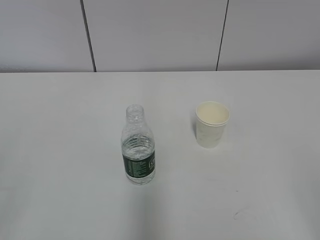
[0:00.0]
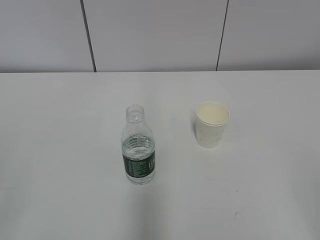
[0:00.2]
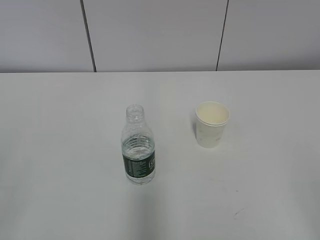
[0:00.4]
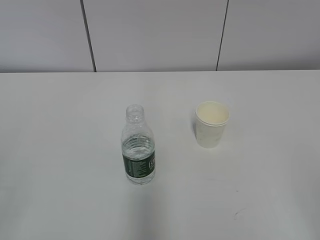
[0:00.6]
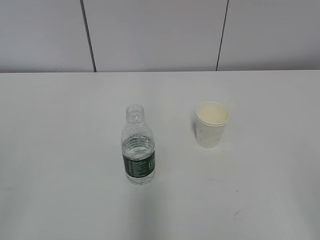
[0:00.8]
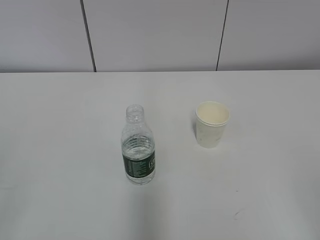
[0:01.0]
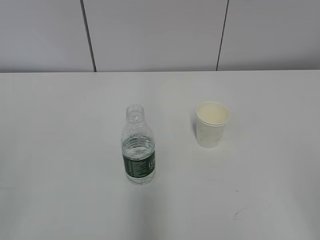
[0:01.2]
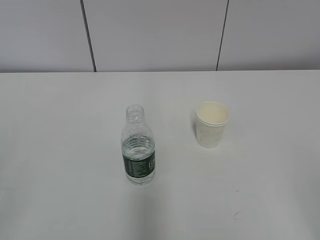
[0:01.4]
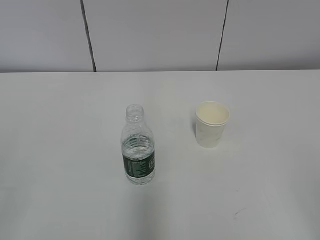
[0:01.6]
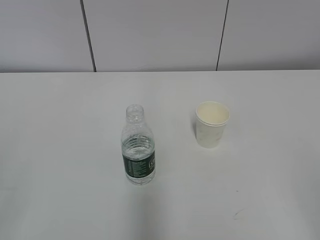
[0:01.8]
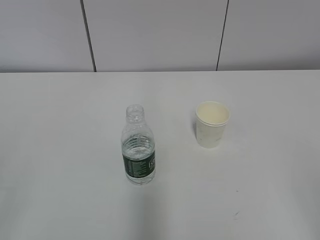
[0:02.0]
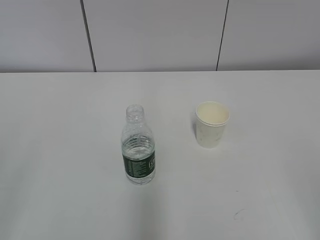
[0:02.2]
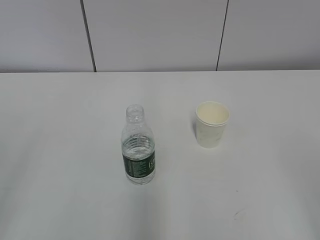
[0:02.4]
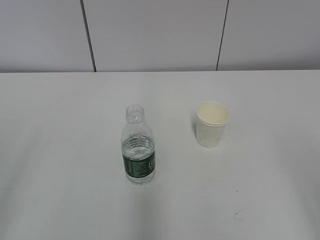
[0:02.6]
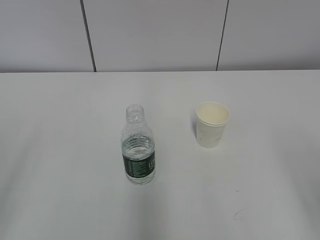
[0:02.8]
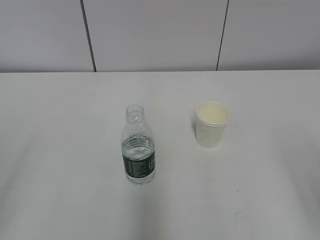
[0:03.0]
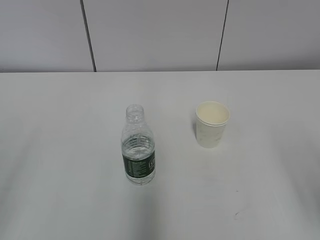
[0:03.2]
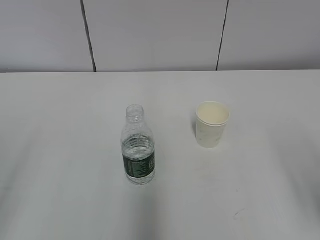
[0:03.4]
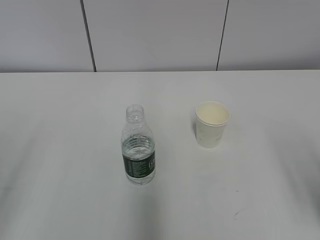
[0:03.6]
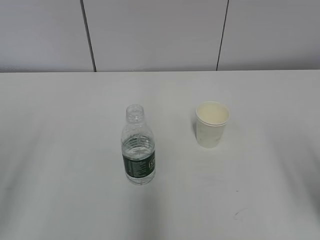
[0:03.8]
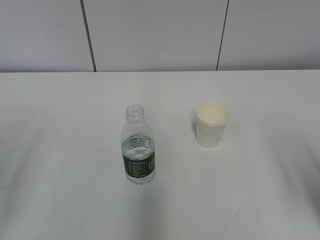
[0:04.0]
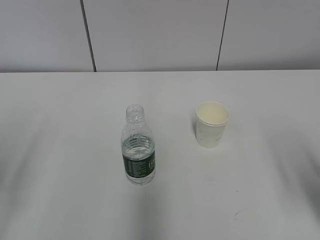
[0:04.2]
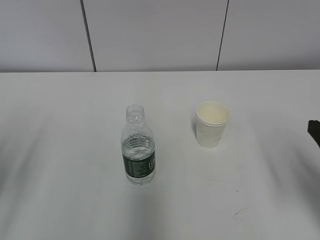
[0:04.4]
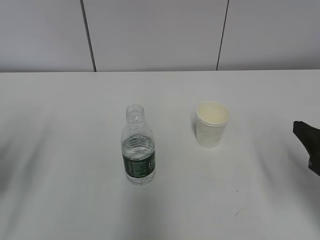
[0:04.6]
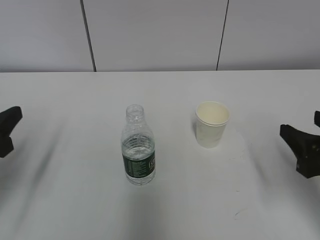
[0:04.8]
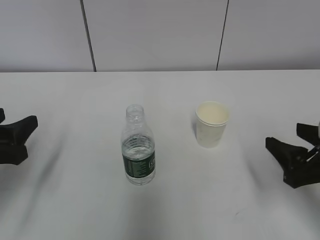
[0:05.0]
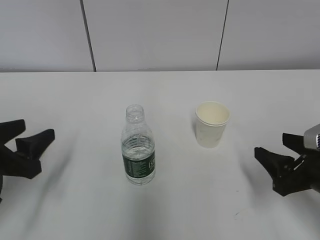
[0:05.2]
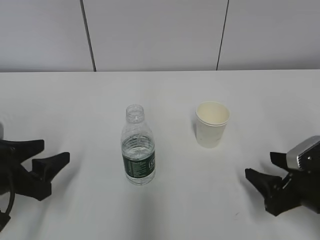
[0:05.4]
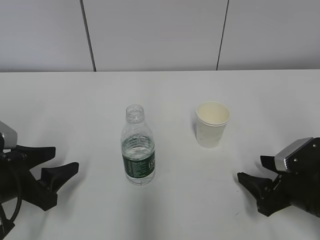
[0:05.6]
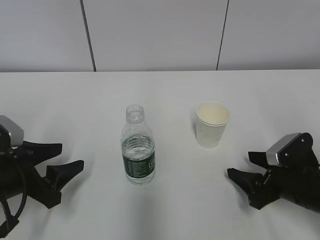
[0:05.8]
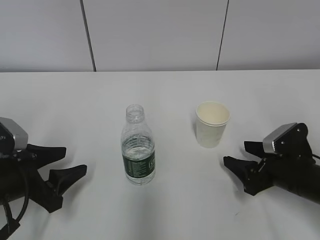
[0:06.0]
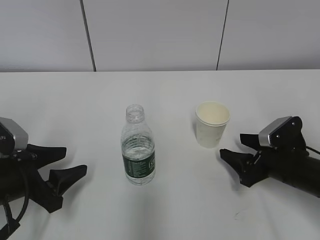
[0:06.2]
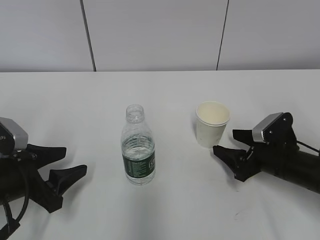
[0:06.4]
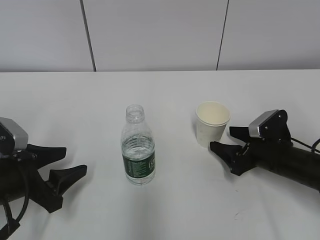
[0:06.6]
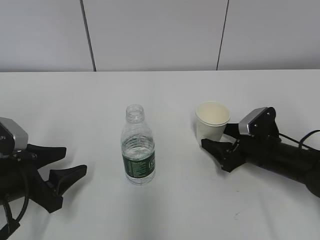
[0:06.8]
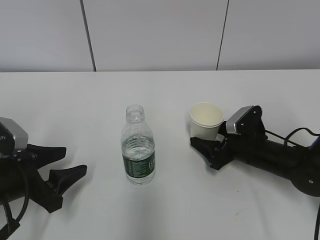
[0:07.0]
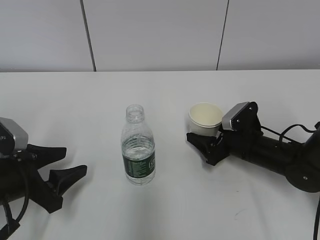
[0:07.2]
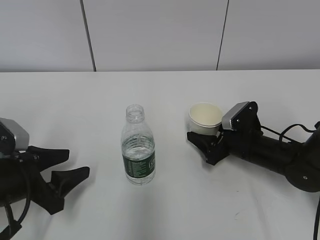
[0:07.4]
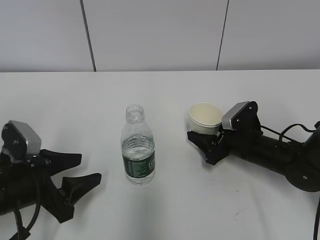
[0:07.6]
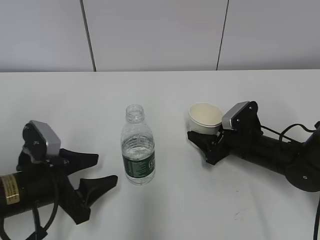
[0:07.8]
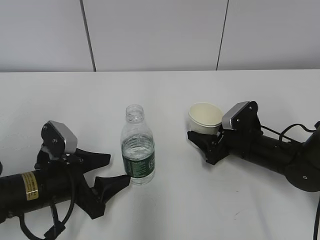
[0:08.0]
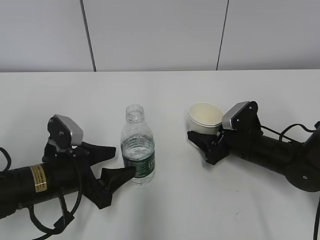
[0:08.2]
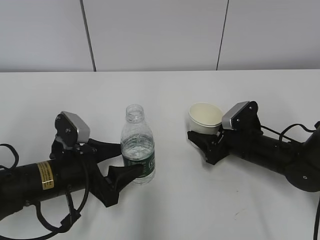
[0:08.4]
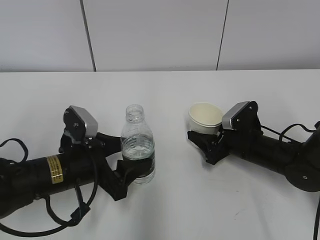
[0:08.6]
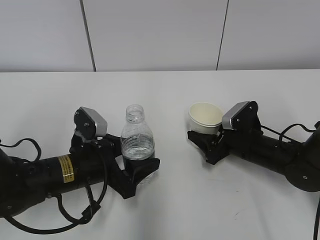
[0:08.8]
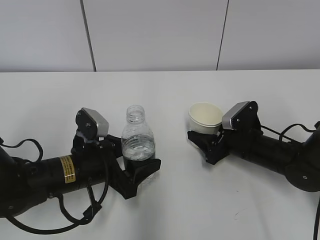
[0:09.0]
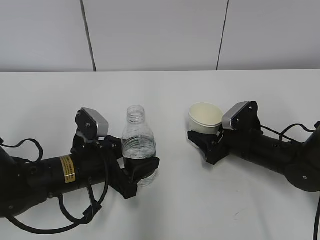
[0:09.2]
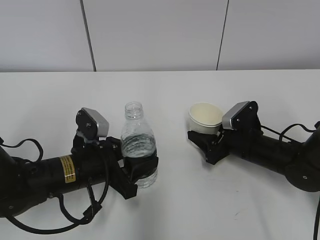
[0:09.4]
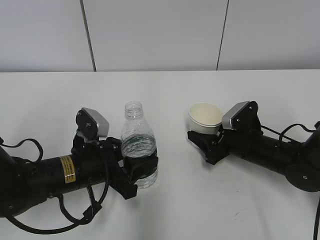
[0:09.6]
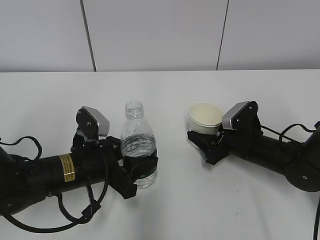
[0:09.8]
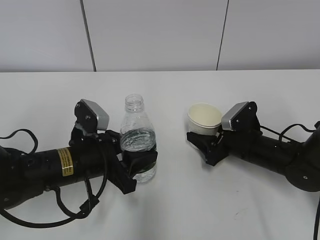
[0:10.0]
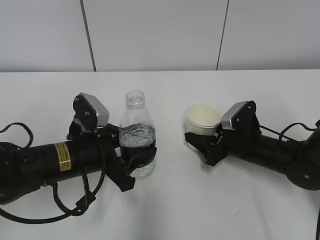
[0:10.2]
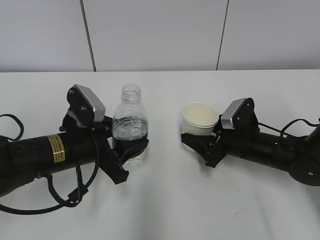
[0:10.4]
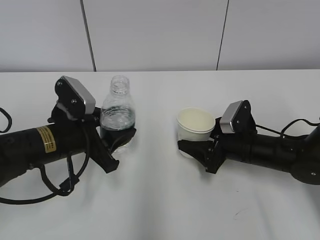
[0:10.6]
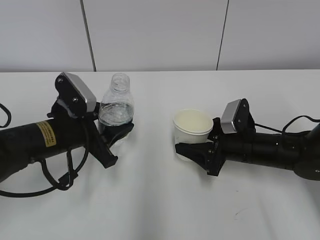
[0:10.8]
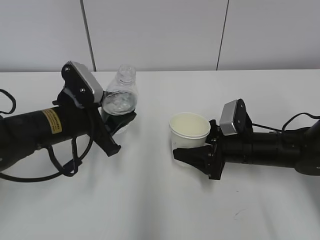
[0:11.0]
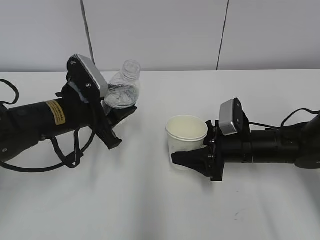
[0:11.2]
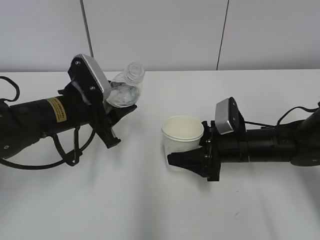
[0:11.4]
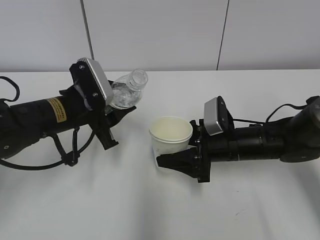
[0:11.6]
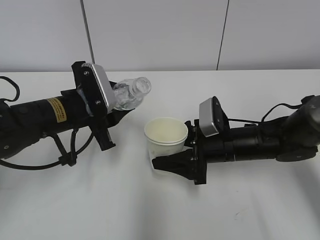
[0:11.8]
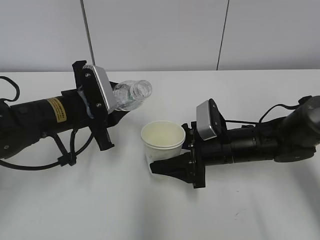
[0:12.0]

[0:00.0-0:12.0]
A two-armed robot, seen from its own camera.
Step, 0:00.0 to 0:08.2: Grab the paper cup with the right hand.
0:03.0 to 0:04.4: The right gripper travels forward by about 10 cm.
0:04.4 to 0:06.0: The left gripper moves downward, forward and to the right, some 15 cm. Meanwhile the right gripper is displaced downward and forward by some 15 cm.
0:06.0 to 0:07.6: The right gripper shifts approximately 10 cm forward.
0:07.6 to 0:09.0: The left gripper travels to the right by some 10 cm.
0:09.0 to 0:10.4: The left gripper closes.
0:10.4 to 0:12.0: The right gripper is displaced to the left by approximately 5 cm. Meanwhile the left gripper shifts some 5 cm forward.

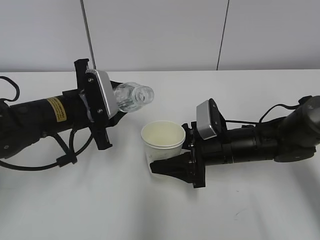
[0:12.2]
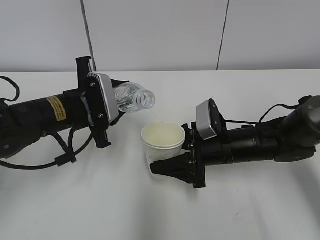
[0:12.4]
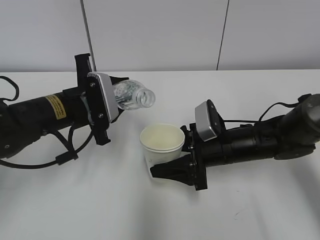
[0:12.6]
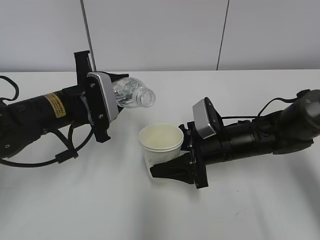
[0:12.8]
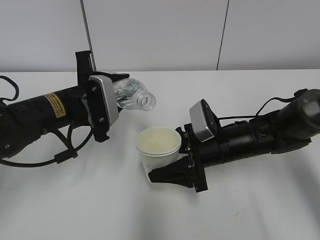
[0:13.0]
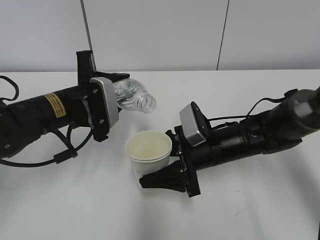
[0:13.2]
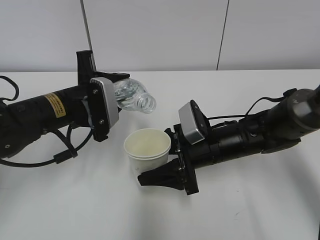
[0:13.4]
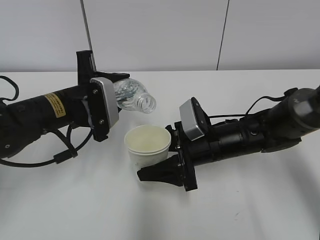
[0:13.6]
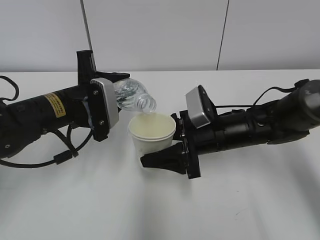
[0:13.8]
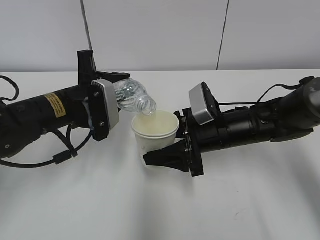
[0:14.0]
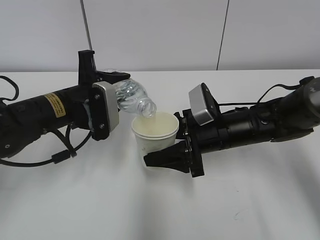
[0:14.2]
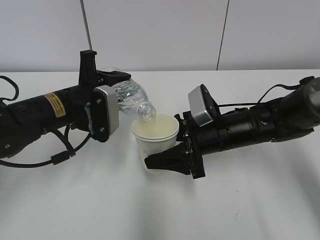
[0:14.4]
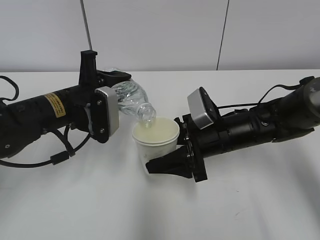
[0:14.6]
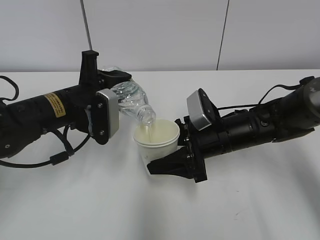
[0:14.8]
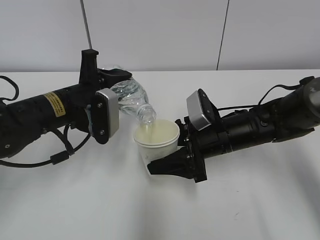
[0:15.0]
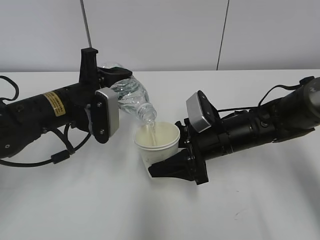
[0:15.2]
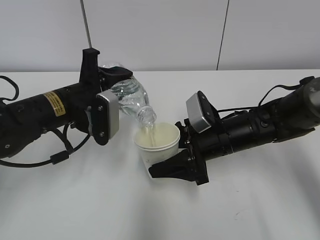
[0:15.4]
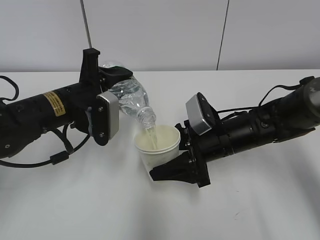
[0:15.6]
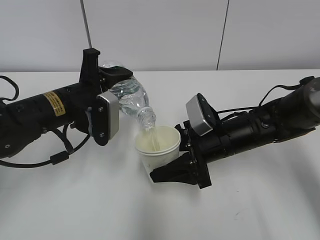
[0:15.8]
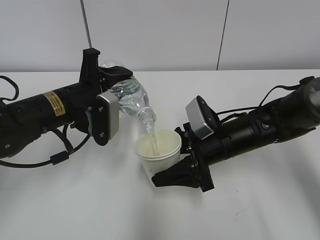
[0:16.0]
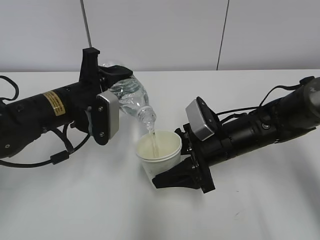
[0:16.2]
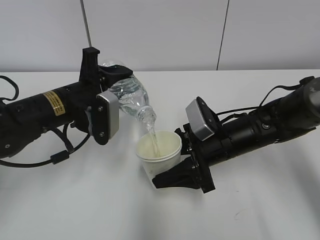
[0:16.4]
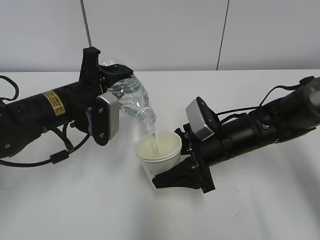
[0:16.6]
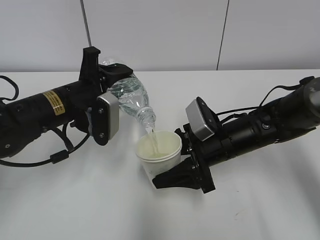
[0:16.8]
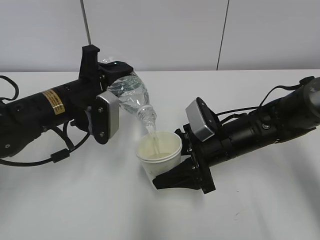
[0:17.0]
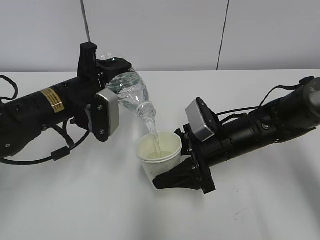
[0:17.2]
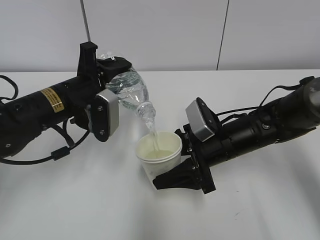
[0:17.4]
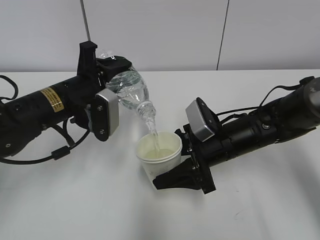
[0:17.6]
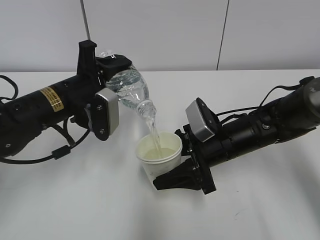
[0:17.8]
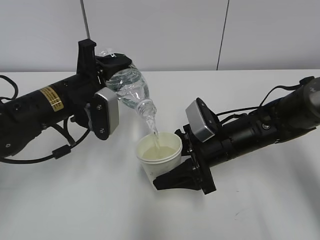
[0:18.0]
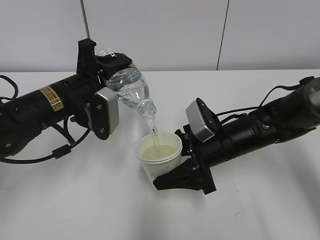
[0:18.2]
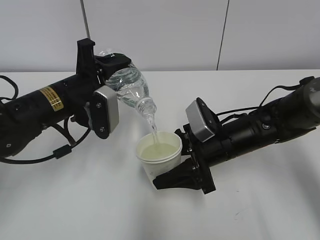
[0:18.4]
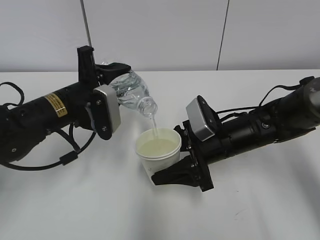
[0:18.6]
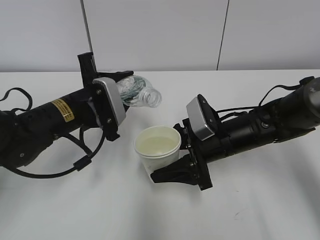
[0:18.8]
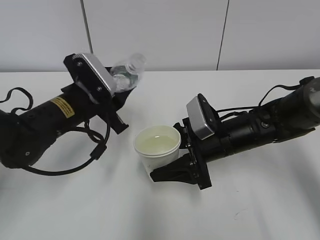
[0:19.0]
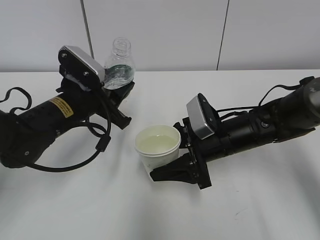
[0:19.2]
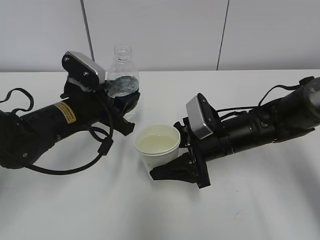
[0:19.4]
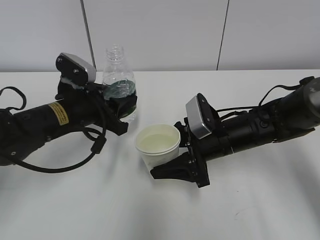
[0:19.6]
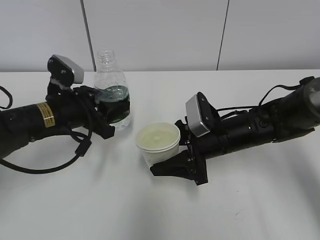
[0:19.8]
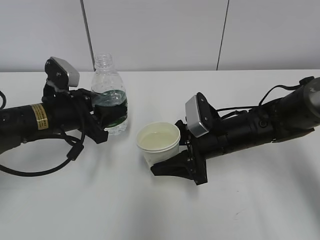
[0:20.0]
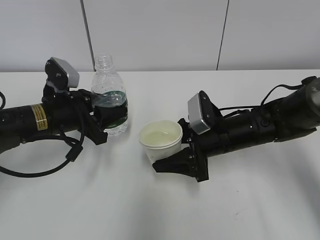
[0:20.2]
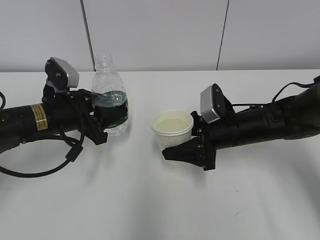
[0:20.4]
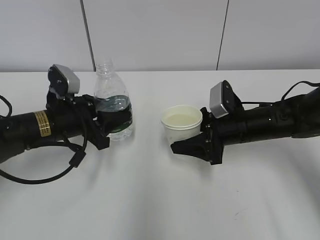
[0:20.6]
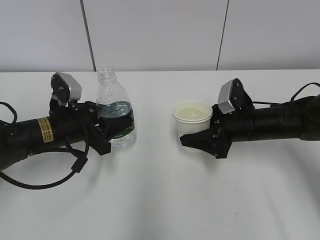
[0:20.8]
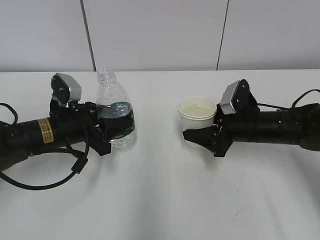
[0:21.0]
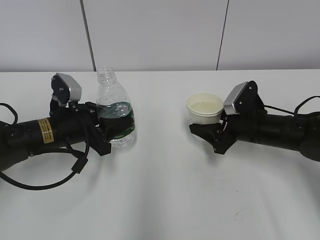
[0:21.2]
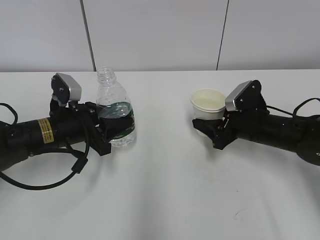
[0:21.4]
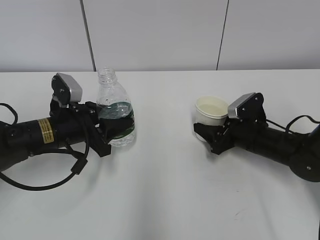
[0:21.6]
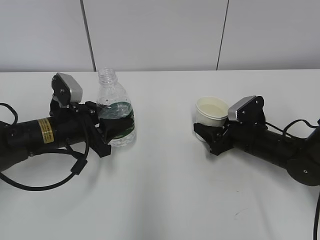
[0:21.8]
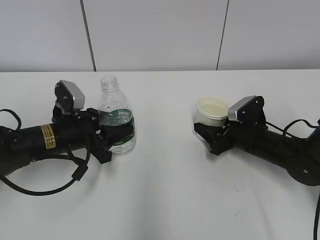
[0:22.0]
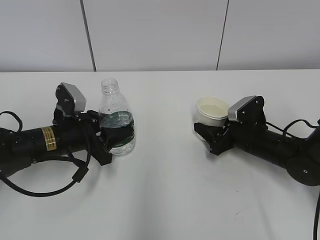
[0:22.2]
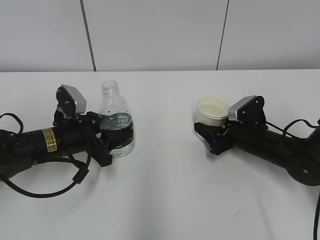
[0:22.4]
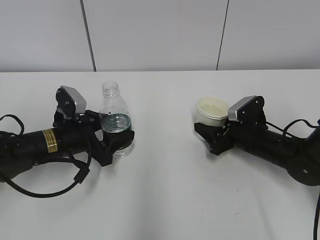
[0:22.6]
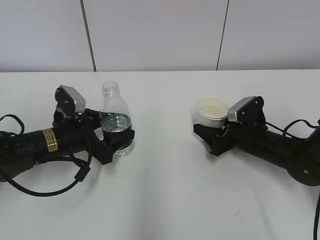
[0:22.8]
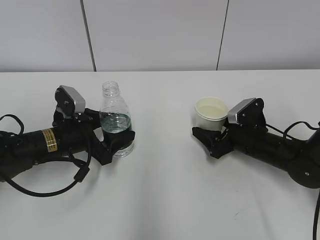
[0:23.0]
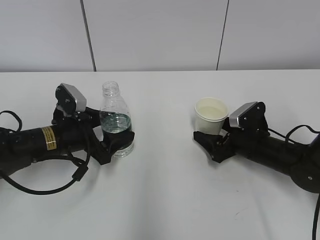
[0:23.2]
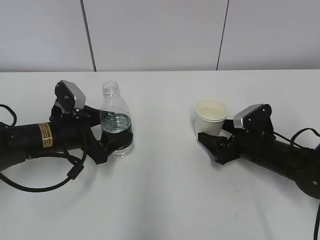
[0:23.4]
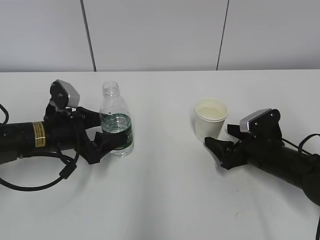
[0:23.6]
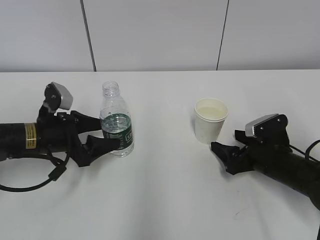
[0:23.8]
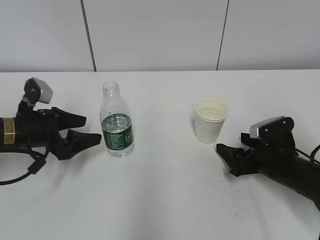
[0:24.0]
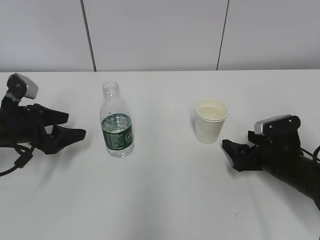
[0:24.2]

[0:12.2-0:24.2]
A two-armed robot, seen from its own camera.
Step, 0:12.2 to 0:15.6: Fill water with the right hand.
Step, 0:16.4 to 0:18.8: Place the water bottle with the left hand.
0:12.2 to 0:13.8: The grippers make only small movements.
0:13.8 to 0:16.6: The grippers stay close to where they were, moving slightly.
0:16.6 to 0:18.2: The grippers make only small movements.
0:19.8 to 0:21.2: The right gripper shifts roughly 10 cm to the right.
0:21.2 to 0:22.6: The left gripper opens up.
0:22.6 to 0:24.2: The left gripper goes approximately 10 cm to the left, and opens its fingers. Meanwhile the right gripper shifts some 5 cm backward, and opens up.
